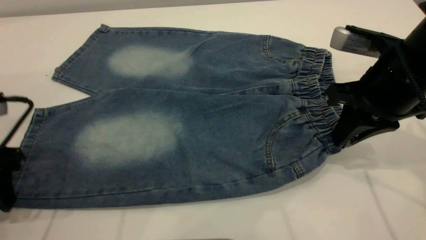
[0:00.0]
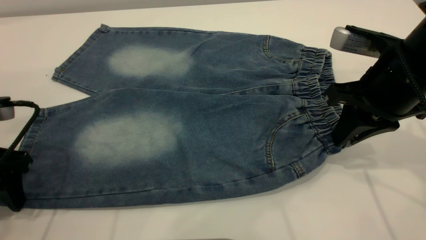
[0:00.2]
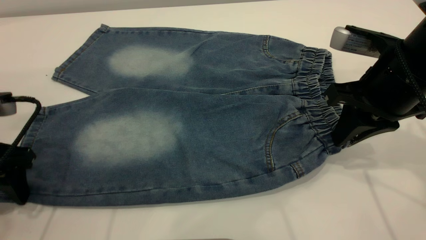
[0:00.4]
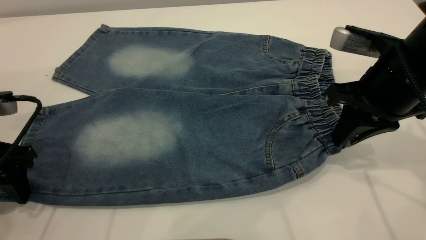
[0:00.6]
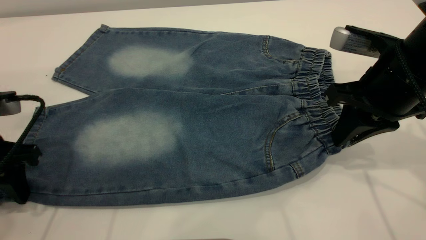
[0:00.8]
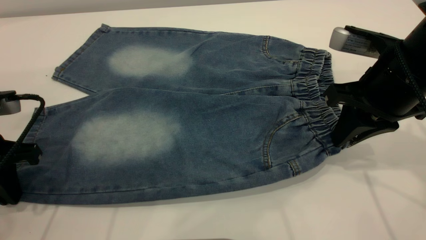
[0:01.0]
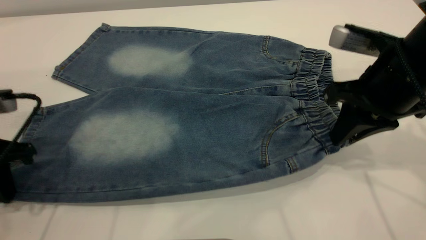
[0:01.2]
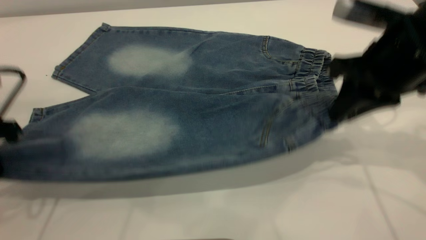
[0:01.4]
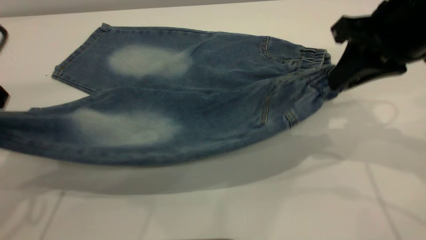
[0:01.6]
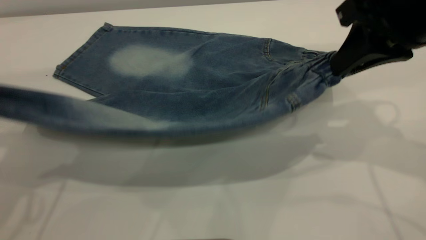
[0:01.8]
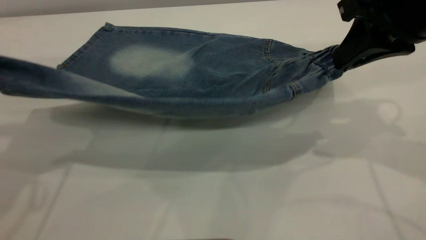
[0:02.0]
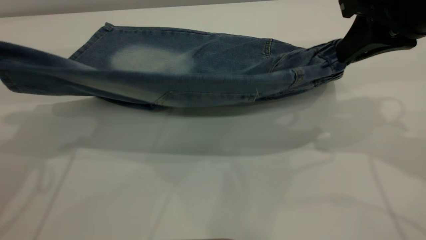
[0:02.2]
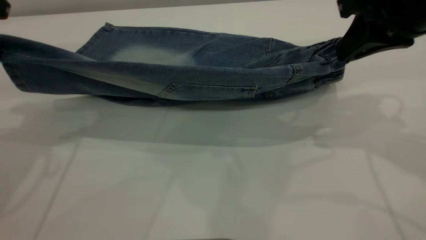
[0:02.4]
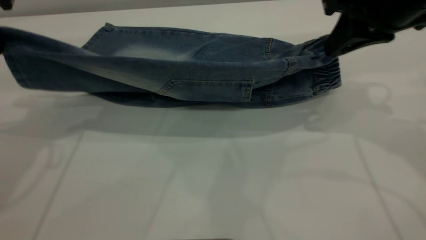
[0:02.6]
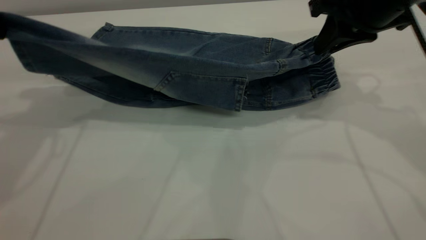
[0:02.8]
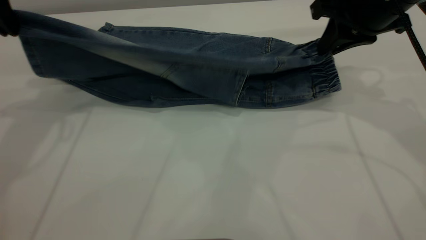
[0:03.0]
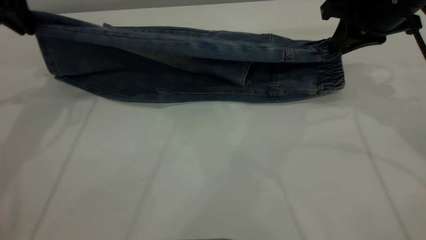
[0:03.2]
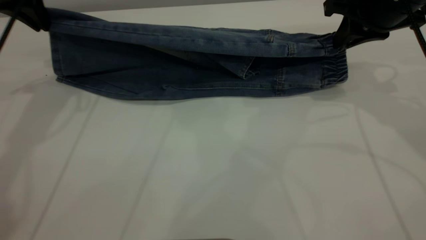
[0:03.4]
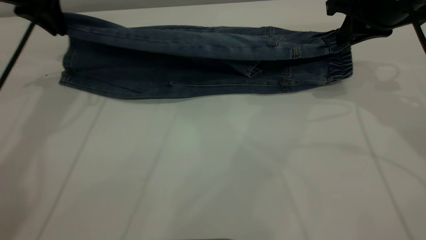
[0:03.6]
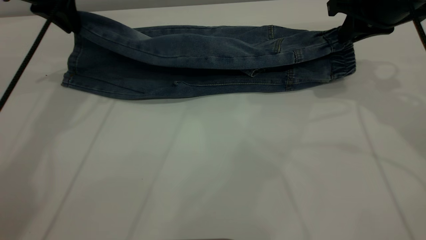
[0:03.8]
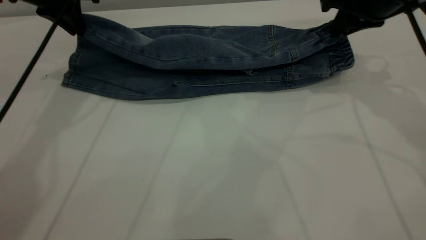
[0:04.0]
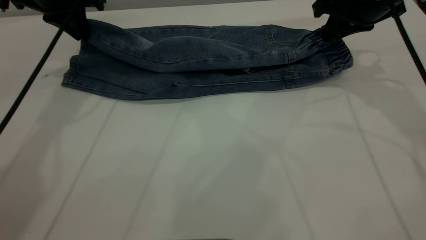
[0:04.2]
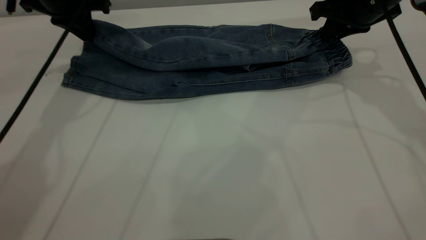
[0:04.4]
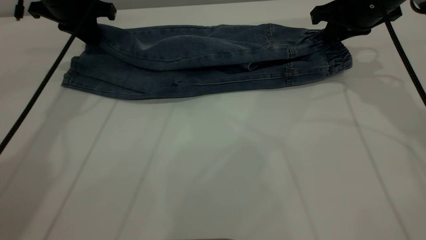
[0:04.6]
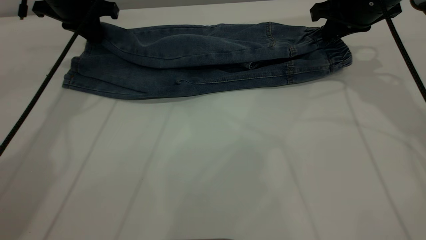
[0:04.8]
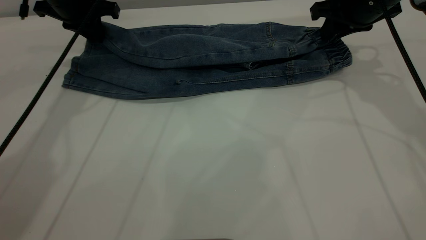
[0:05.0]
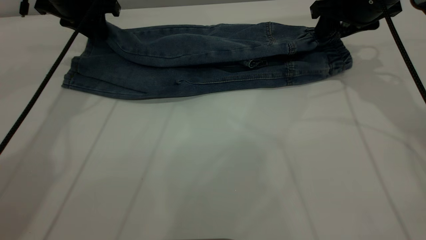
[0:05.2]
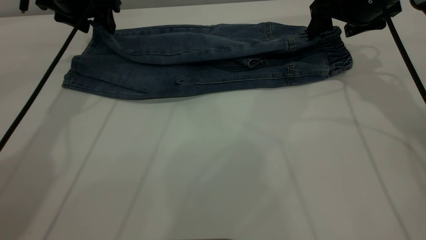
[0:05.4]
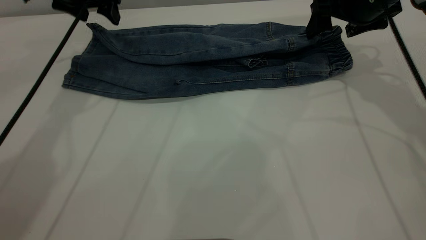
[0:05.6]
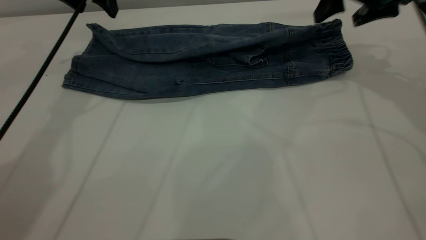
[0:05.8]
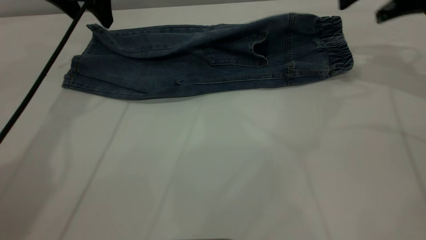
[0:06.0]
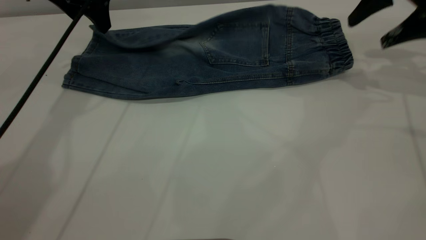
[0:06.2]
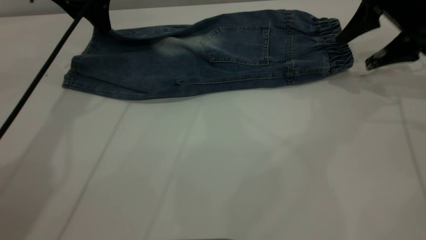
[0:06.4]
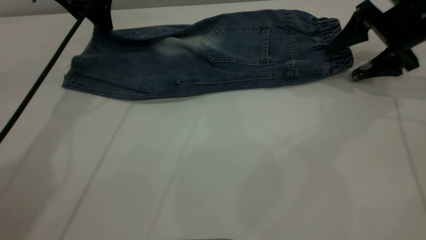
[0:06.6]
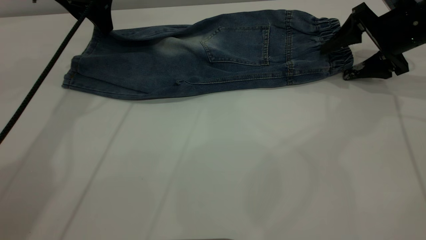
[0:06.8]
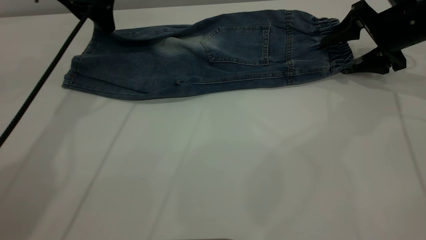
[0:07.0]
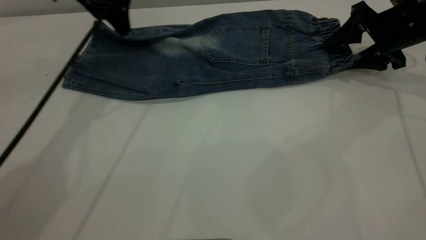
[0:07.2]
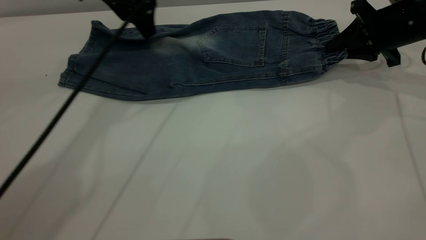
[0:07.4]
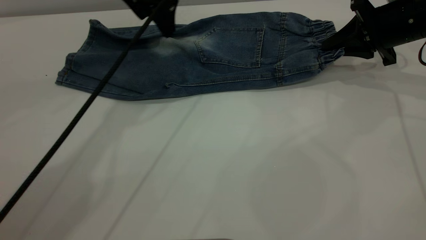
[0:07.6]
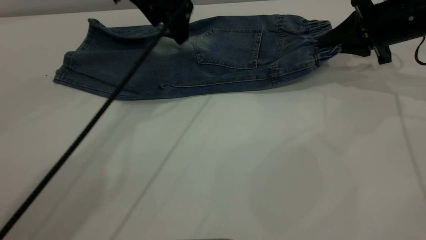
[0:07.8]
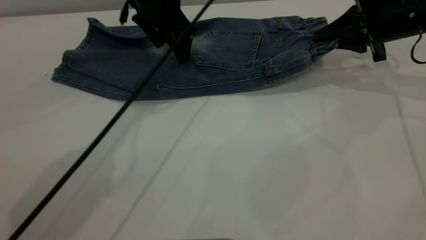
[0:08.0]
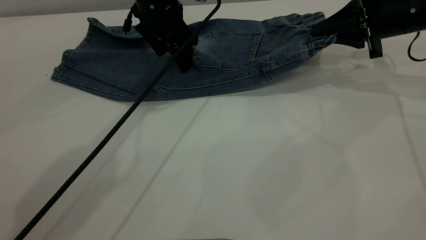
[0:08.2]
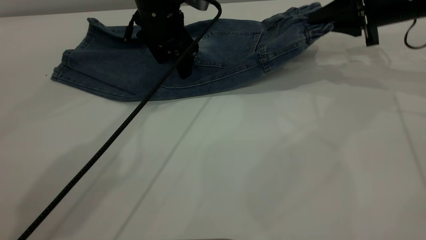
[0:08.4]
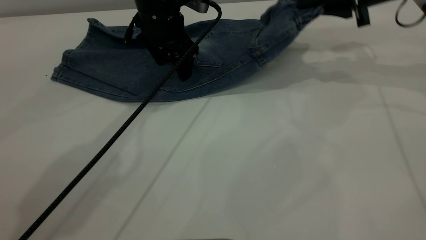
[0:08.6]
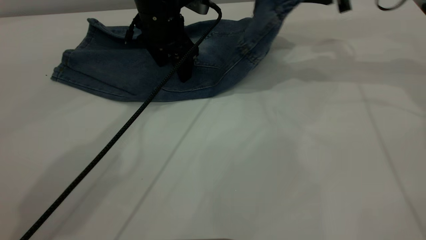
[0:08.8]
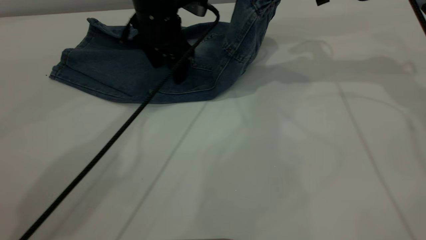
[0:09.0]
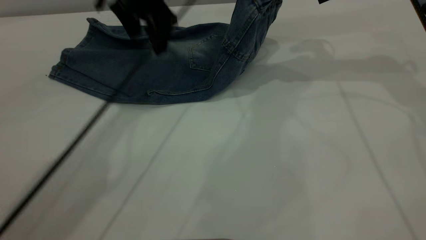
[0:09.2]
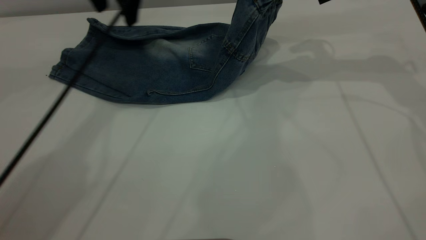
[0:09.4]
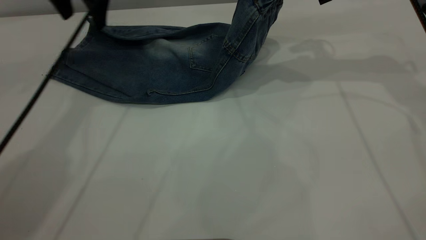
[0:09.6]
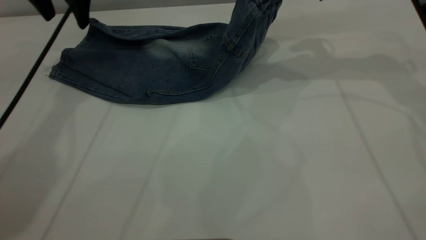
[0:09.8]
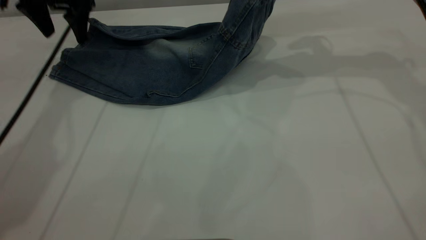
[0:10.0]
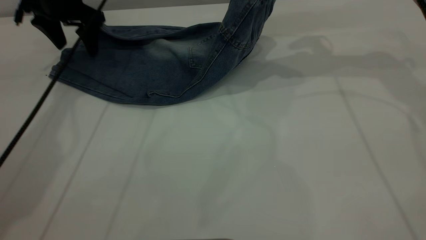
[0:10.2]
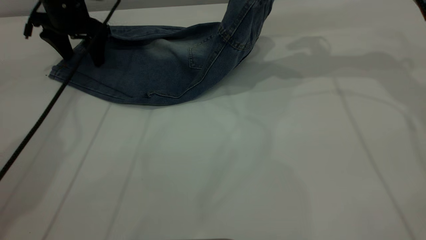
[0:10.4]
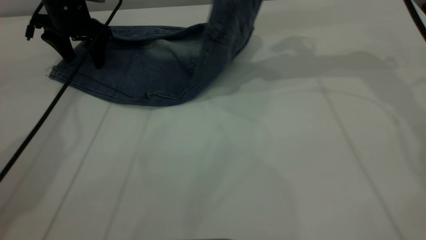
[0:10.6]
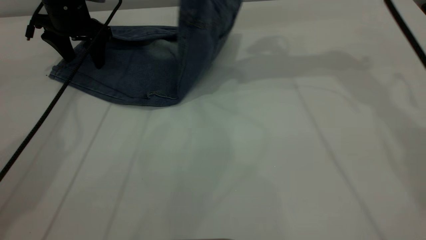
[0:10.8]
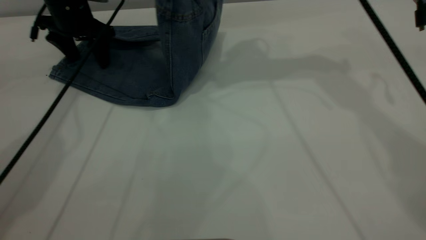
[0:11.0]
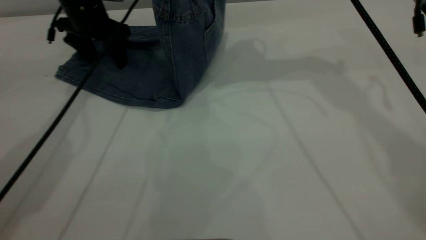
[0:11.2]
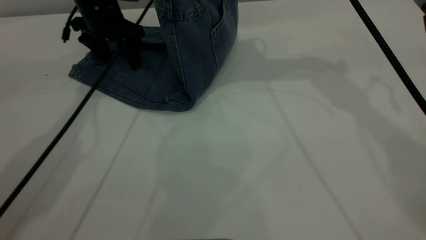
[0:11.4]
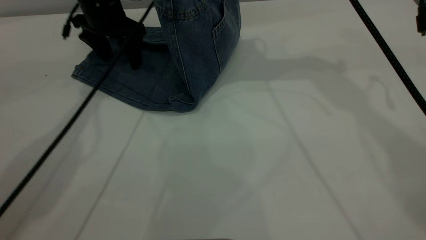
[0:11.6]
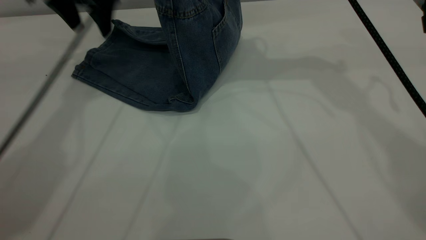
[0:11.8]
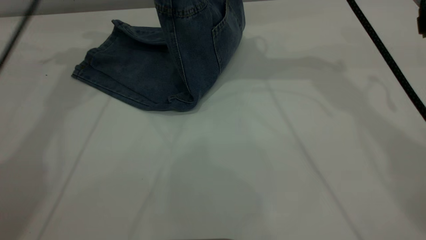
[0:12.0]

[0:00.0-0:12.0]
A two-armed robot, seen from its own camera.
Step, 0:00.0 to 0:05.6: Fold the bottom of the pants upward.
0:00.0 to 0:01.6: The two grippers go approximately 10 cm upward. The left gripper closes up.
0:01.6 to 0:03.0: The left gripper moves forward, some 15 cm; the right gripper is displaced forward by about 10 cm.
0:03.0 to 0:04.4: The left gripper heads forward and downward, covering approximately 10 cm. Meanwhile the right gripper travels forward by about 5 cm.
0:04.4 to 0:06.0: The right gripper moves to the right, about 5 cm, and opens its fingers. The left gripper opens.
0:06.0 to 0:07.6: The right gripper travels downward by about 10 cm, and closes up, while the left gripper heads to the right, covering some 10 cm.
0:07.6 to 0:09.0: The left gripper moves downward, roughly 5 cm, while the right gripper travels to the left and upward by approximately 15 cm.
0:09.0 to 0:10.4: The left gripper shifts roughly 15 cm to the left.
0:10.4 to 0:12.0: The right gripper is displaced to the left and upward by approximately 10 cm. The left gripper travels upward by about 15 cm.

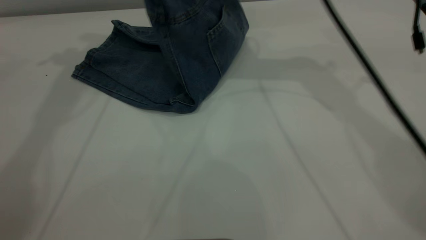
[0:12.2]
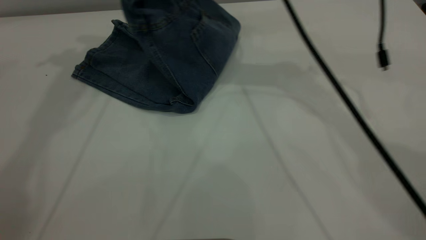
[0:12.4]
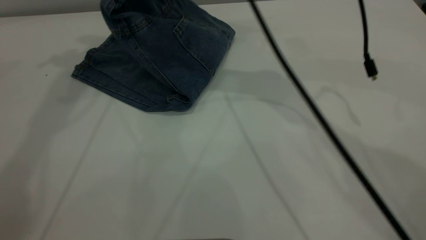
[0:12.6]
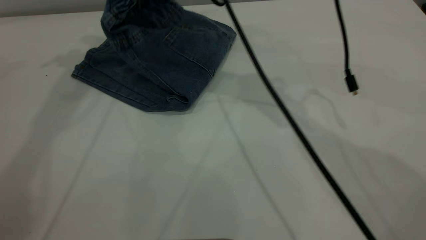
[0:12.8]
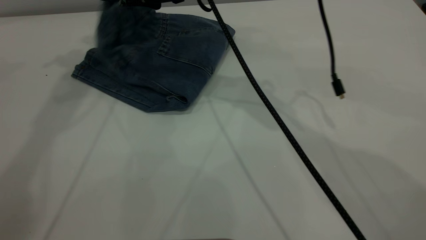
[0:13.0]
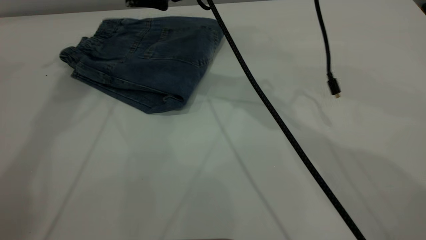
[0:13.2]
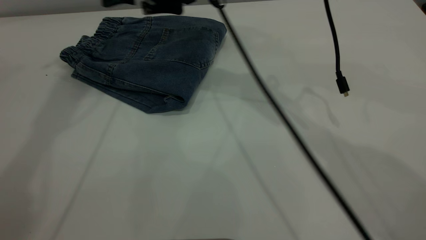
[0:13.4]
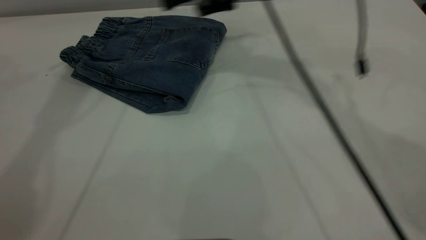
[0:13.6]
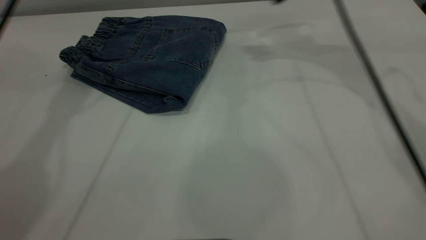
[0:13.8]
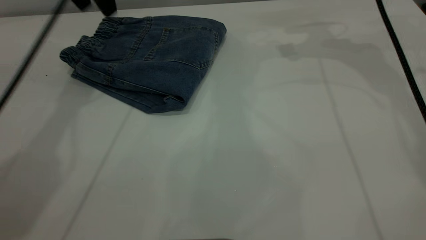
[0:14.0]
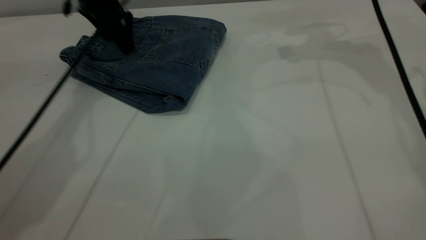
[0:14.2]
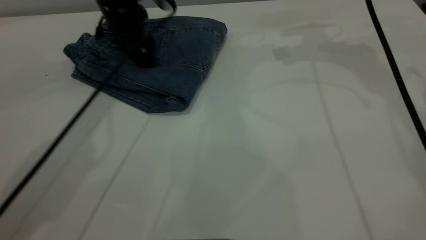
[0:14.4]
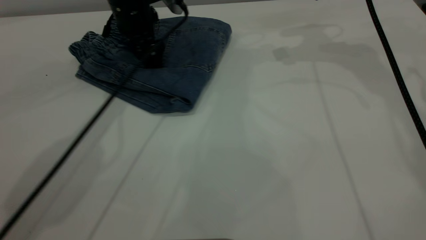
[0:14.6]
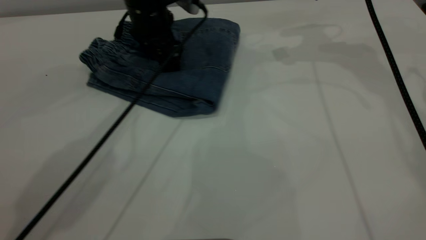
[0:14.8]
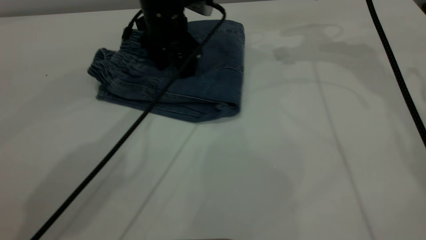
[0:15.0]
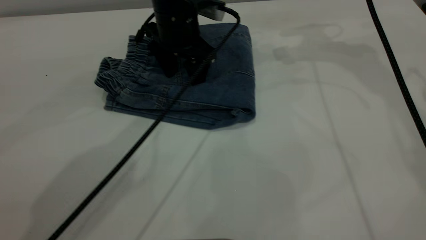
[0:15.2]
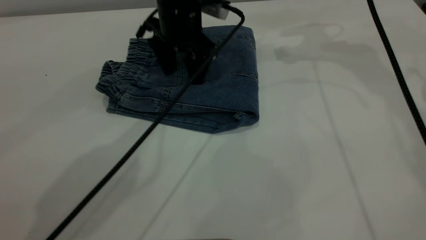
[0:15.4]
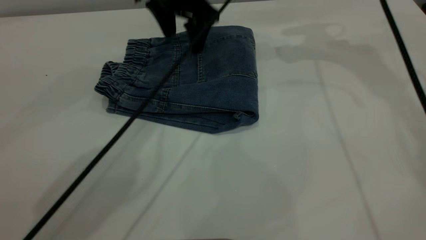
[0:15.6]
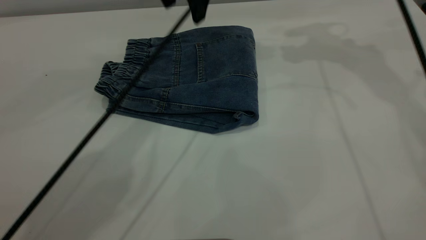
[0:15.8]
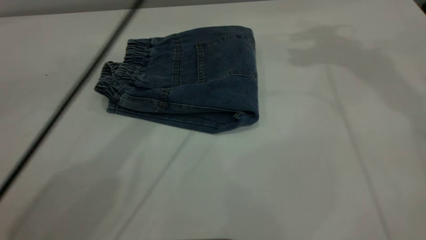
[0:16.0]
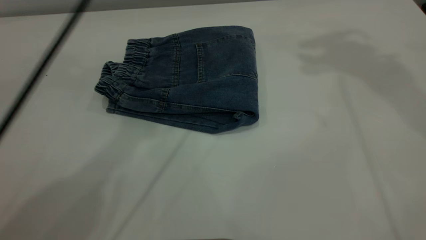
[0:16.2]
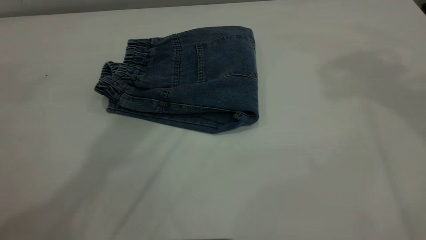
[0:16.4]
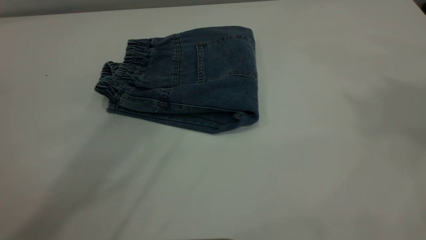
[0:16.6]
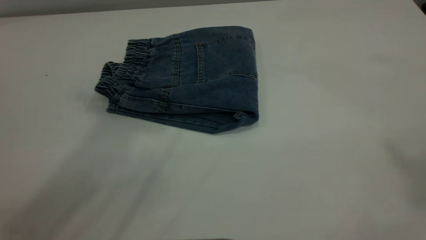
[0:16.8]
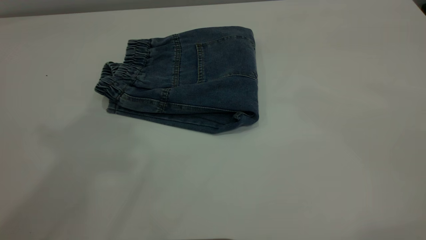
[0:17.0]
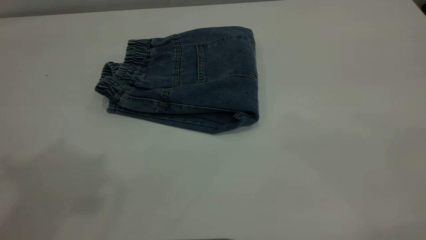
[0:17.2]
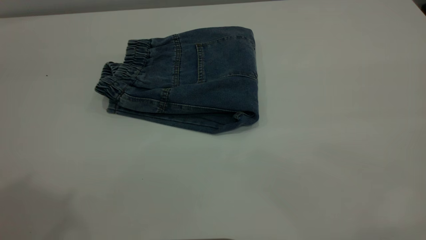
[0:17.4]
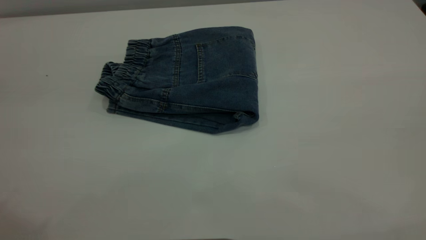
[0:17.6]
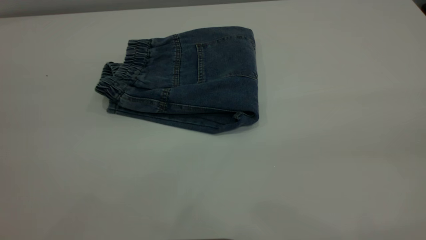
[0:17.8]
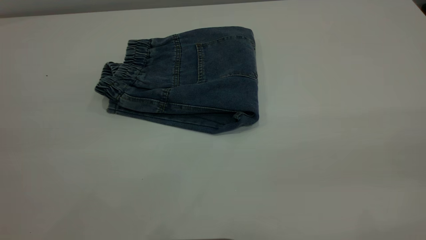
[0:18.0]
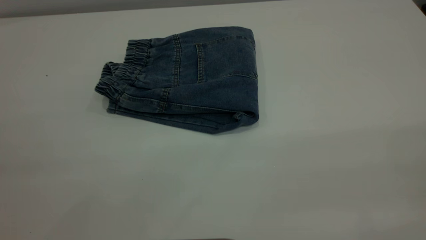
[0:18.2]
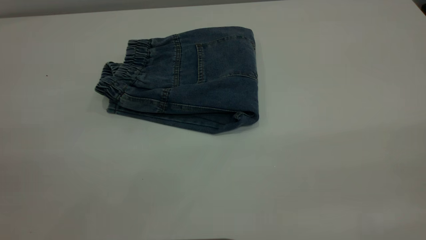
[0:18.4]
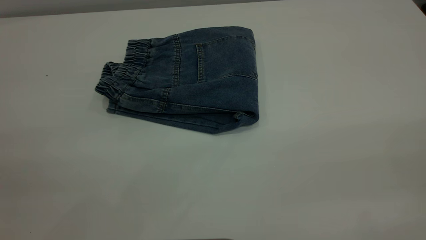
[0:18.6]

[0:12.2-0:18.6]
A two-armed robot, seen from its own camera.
0:12.2 to 0:13.8: The right gripper goes about 15 cm to the right, and opens, while the left gripper heads downward, covering some 10 cm.
0:13.8 to 0:15.4: The left gripper goes approximately 20 cm to the right and downward.
0:15.4 to 0:17.0: The right gripper moves backward and upward, approximately 50 cm. The left gripper moves upward and backward, some 50 cm.
